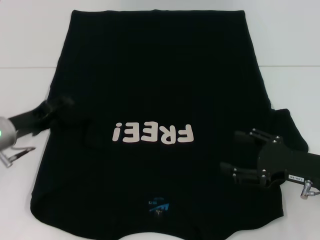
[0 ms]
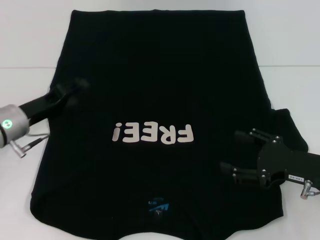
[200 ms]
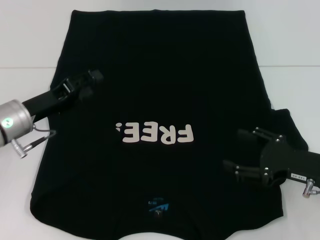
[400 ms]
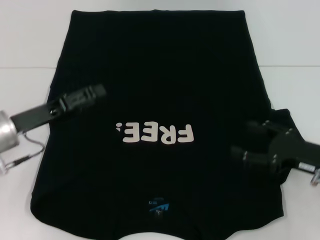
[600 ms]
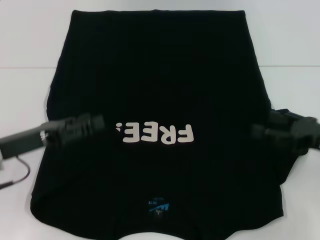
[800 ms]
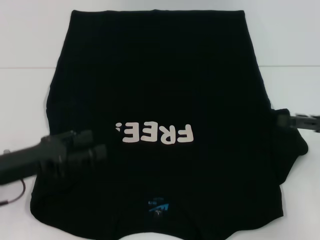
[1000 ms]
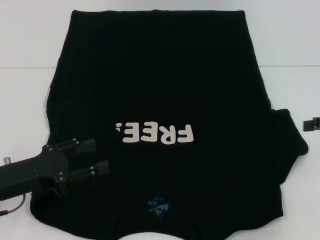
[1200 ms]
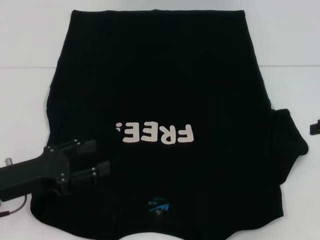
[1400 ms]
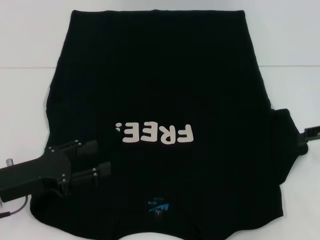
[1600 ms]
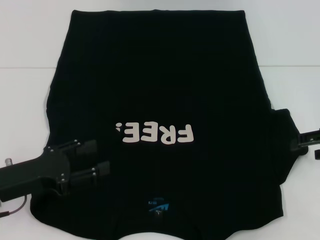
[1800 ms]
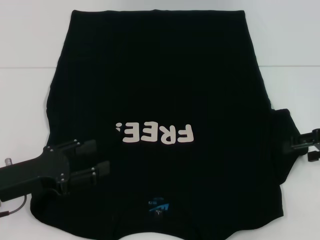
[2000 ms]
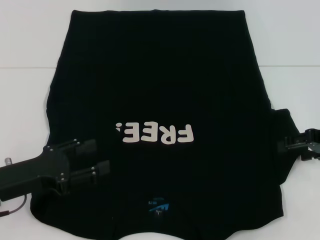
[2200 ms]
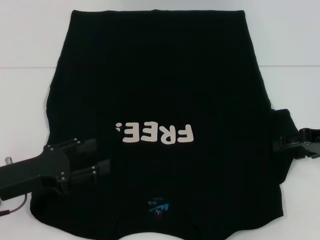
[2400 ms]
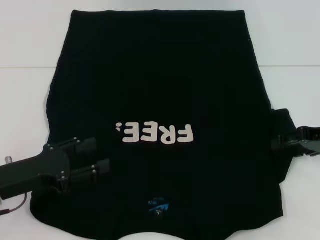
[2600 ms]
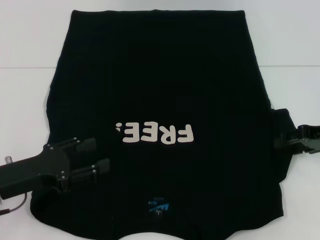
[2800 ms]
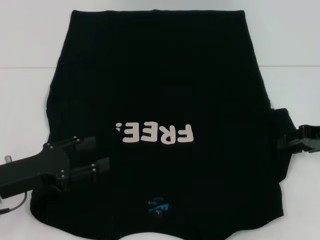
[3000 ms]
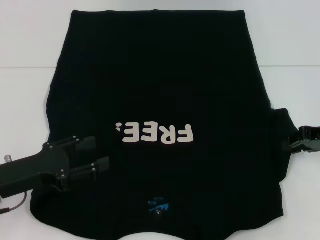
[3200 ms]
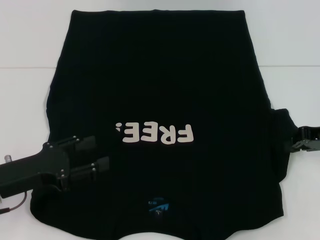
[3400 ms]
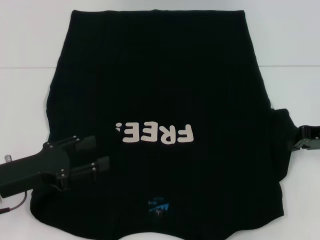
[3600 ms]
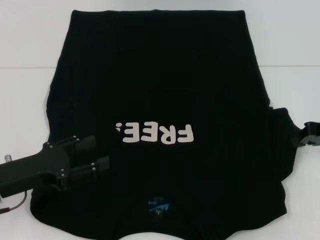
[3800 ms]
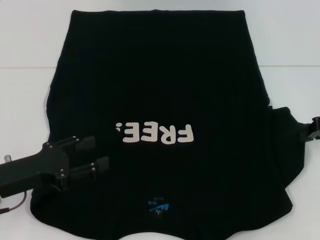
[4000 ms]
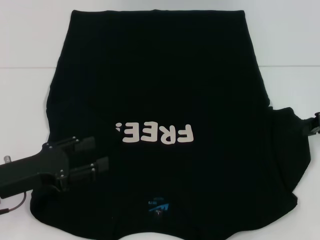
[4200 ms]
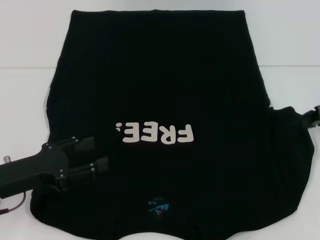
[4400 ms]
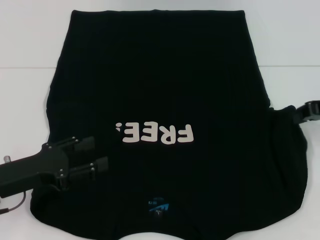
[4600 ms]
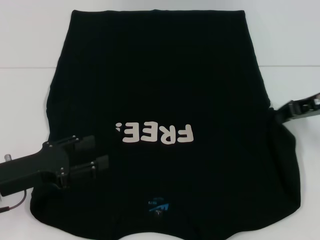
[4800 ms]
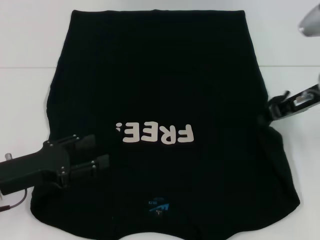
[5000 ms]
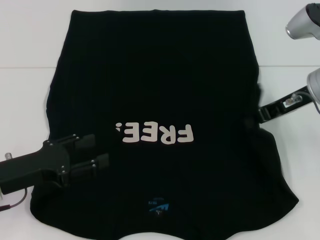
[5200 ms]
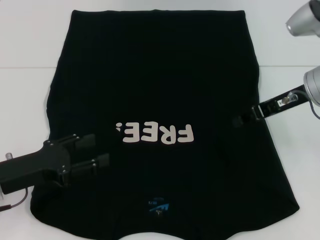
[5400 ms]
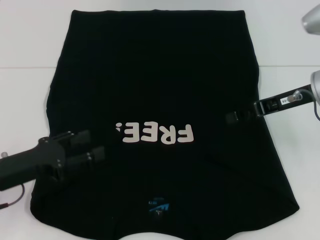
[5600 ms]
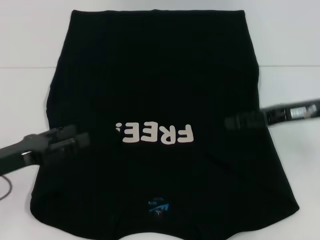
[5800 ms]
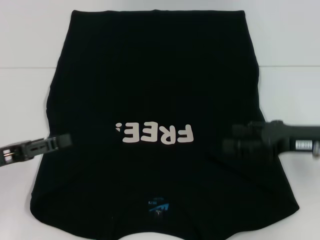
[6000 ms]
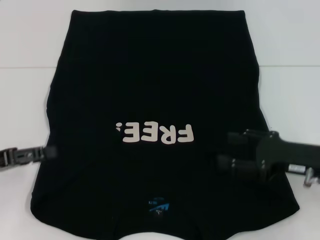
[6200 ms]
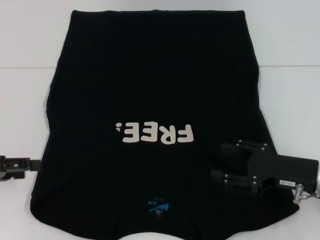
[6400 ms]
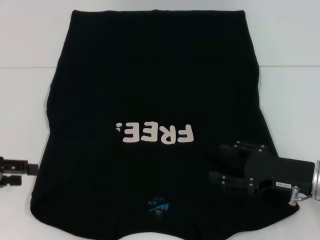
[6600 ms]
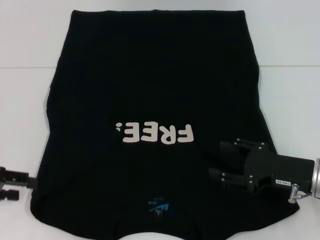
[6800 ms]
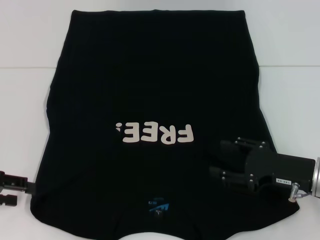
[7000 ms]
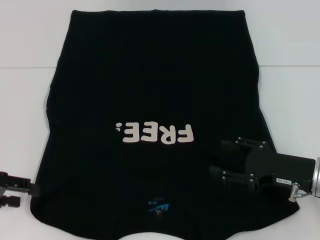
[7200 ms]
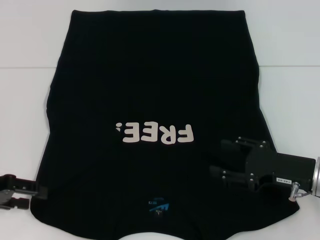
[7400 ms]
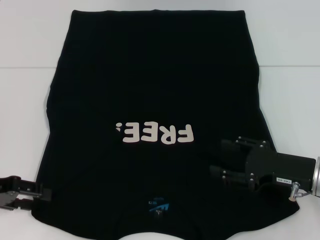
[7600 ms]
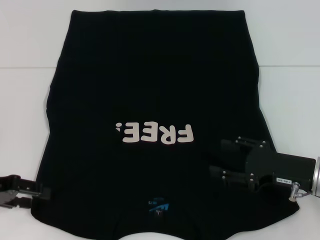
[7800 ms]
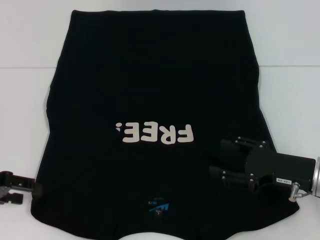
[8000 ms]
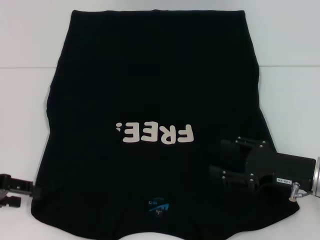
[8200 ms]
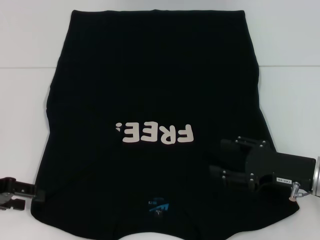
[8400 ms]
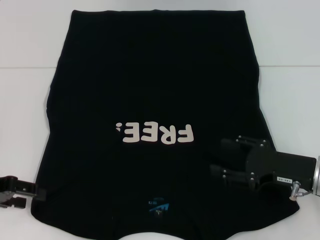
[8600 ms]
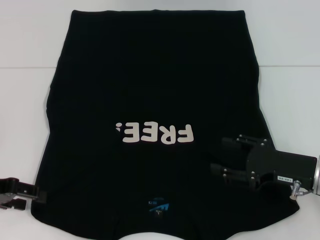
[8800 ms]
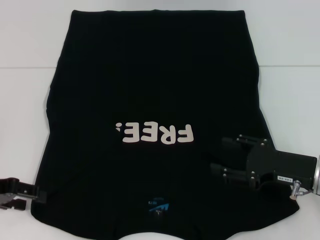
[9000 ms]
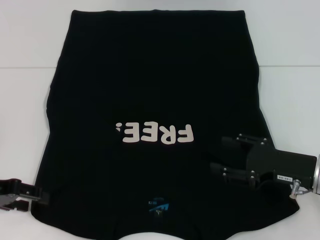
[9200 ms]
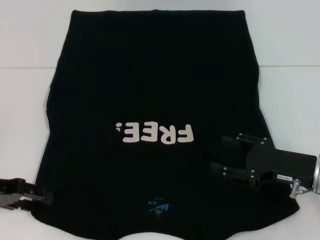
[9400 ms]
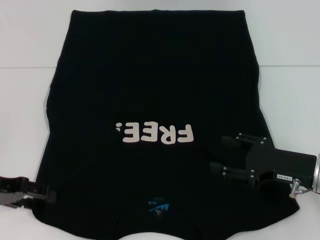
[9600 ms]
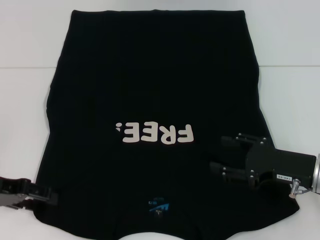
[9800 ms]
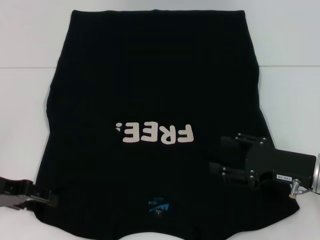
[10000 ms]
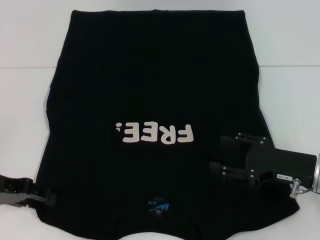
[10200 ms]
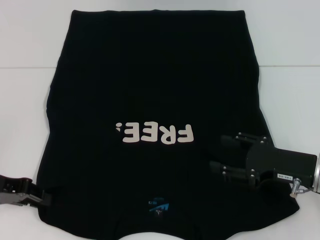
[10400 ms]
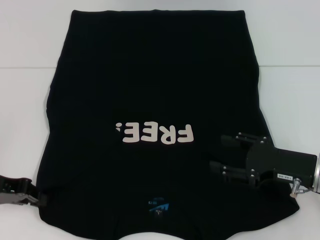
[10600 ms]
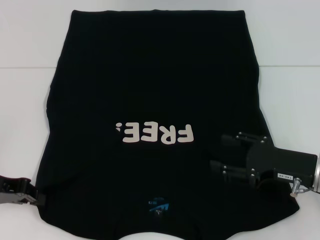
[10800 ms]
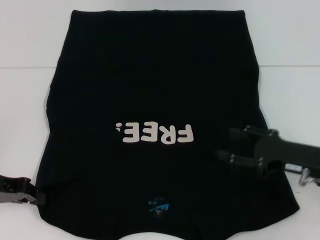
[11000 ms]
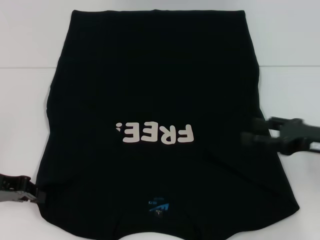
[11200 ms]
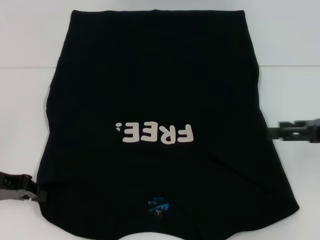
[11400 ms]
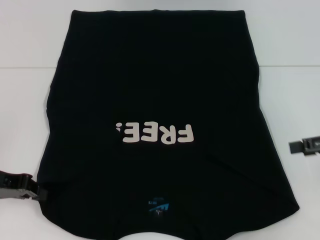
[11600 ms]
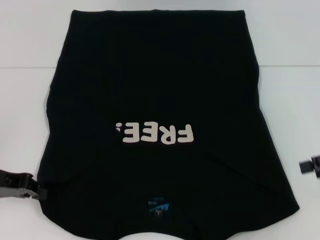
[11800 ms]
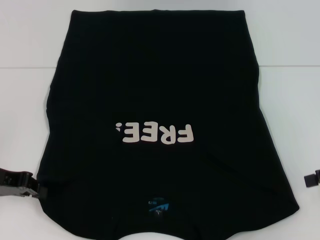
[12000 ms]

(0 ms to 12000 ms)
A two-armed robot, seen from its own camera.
Step, 0 ms - 5800 ms: Fold the bottom right sleeve with your right hand.
Step, 6000 ms - 10800 ms: Grab the bottom left corner with your left hand.
0 ms - 1600 ms: The right gripper heads upward, to the right and forward, covering about 15 cm. Meanwhile the left gripper is displaced backward by approximately 10 cm.
1600 ms - 3000 ms: The grippers move only a little.
3000 ms - 4400 ms: The right gripper closes its fingers.
4400 ms - 6000 ms: The right gripper is displaced to the left and backward by some 10 cm, and opens up.
6000 ms - 7600 ms: The right gripper goes roughly 5 cm downward.
7600 ms - 10400 ms: The grippers stay close to where they were, moving slightly.
10400 ms - 12000 ms: The left gripper closes, while the right gripper travels to the right and upward by about 15 cm.

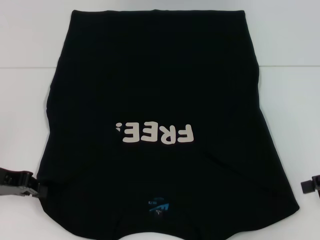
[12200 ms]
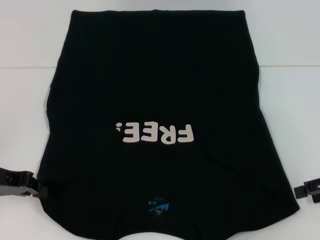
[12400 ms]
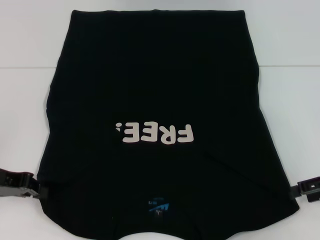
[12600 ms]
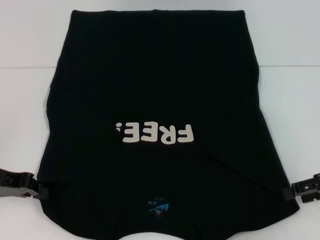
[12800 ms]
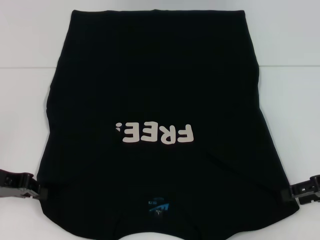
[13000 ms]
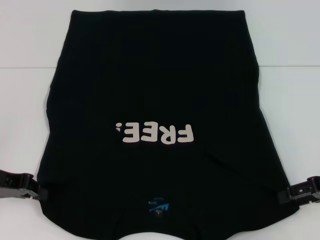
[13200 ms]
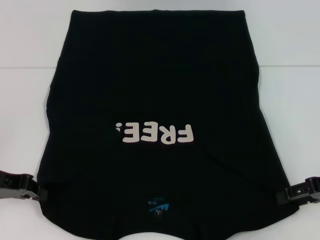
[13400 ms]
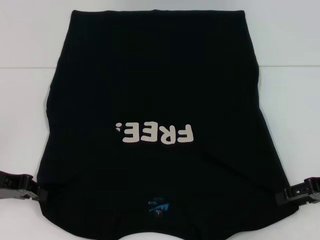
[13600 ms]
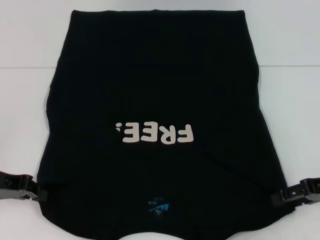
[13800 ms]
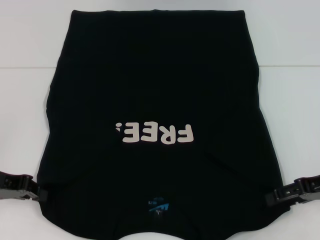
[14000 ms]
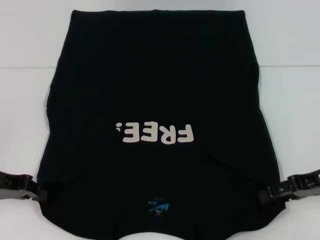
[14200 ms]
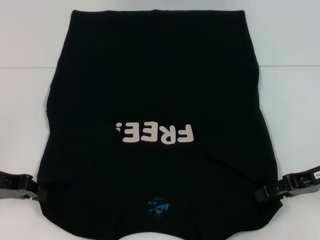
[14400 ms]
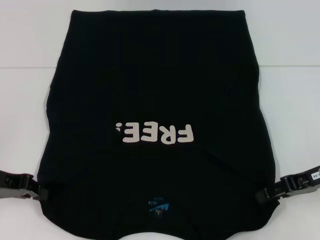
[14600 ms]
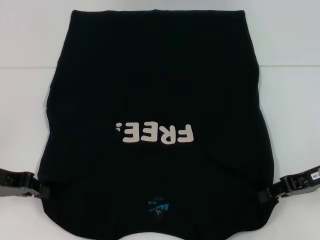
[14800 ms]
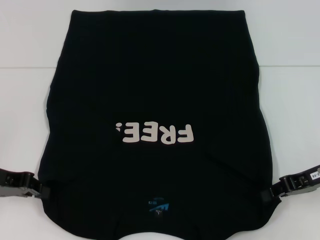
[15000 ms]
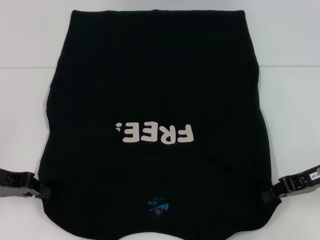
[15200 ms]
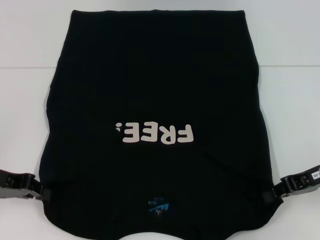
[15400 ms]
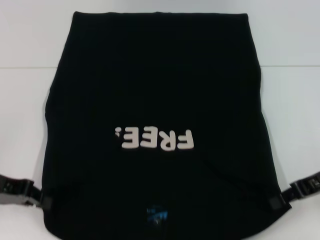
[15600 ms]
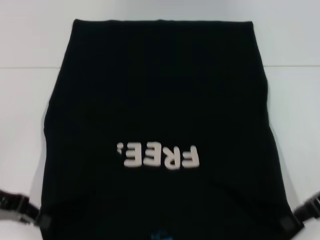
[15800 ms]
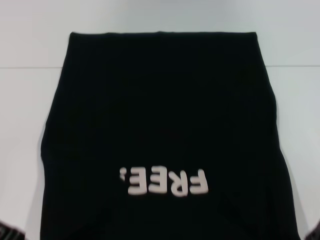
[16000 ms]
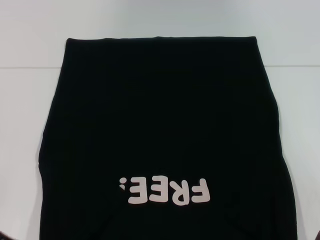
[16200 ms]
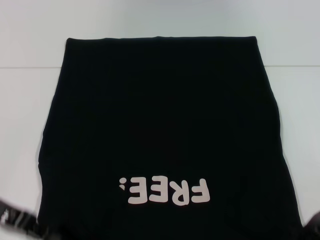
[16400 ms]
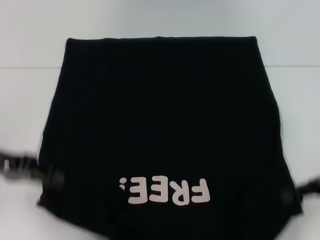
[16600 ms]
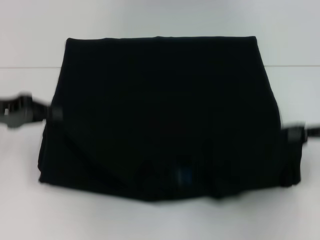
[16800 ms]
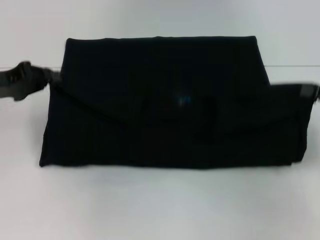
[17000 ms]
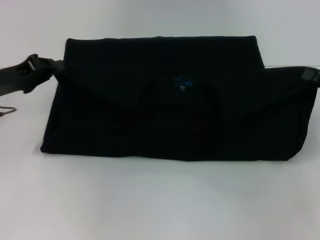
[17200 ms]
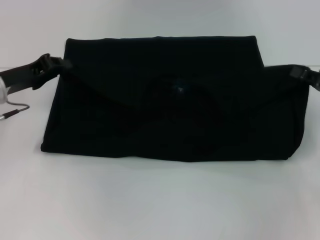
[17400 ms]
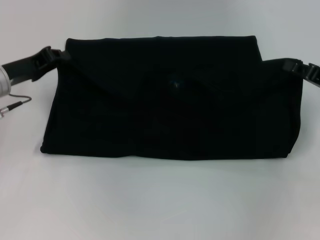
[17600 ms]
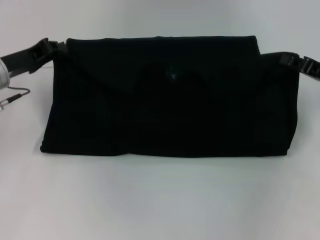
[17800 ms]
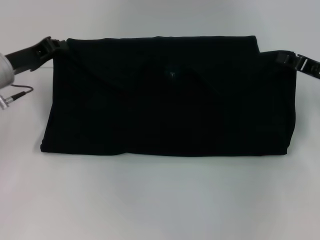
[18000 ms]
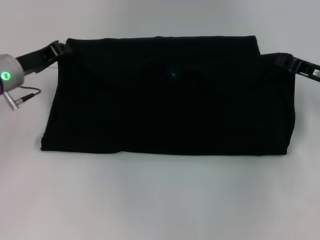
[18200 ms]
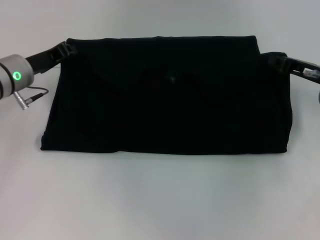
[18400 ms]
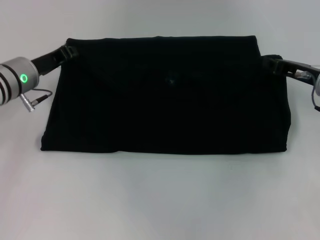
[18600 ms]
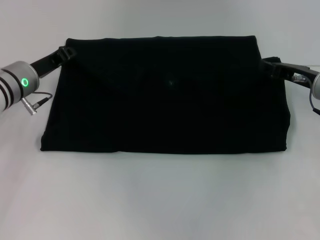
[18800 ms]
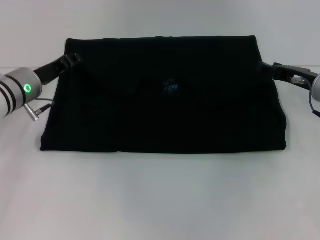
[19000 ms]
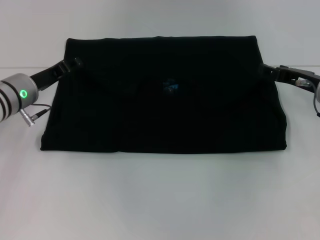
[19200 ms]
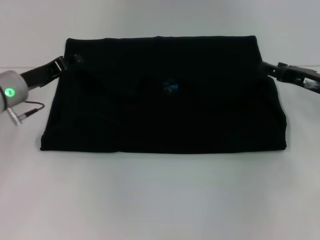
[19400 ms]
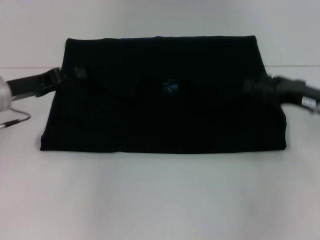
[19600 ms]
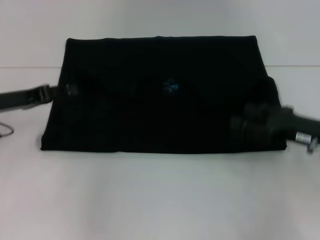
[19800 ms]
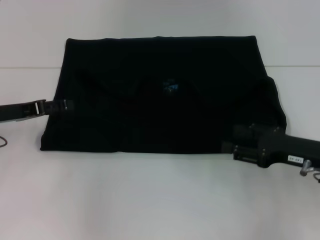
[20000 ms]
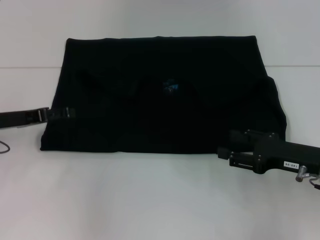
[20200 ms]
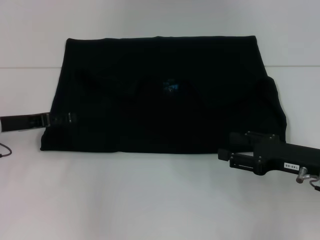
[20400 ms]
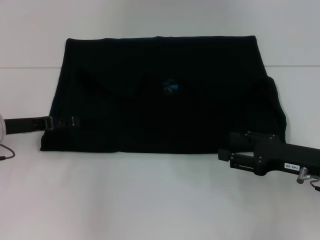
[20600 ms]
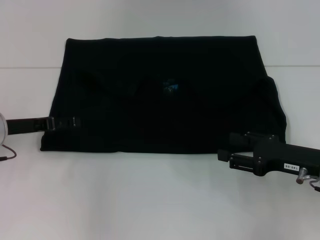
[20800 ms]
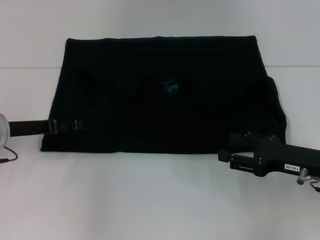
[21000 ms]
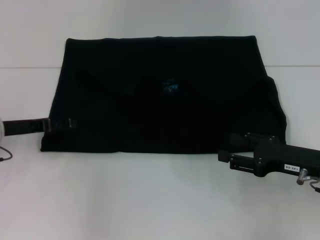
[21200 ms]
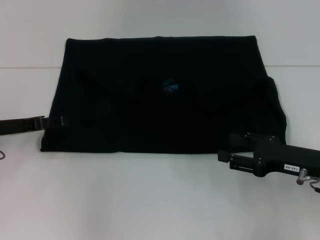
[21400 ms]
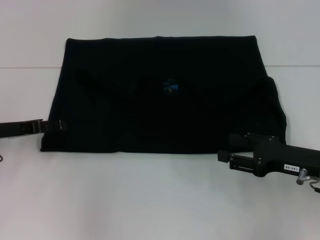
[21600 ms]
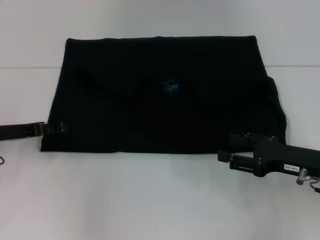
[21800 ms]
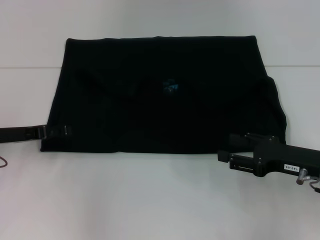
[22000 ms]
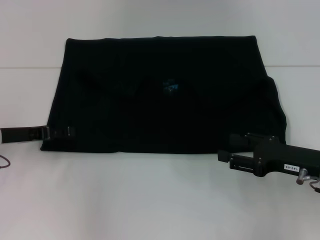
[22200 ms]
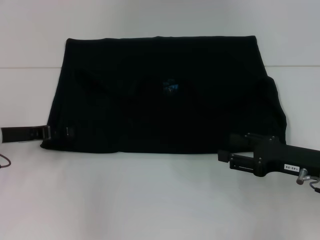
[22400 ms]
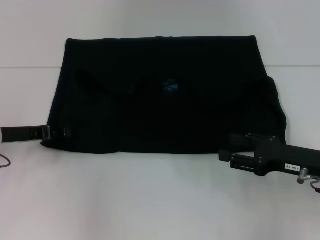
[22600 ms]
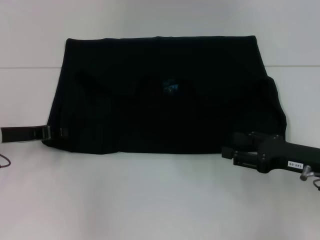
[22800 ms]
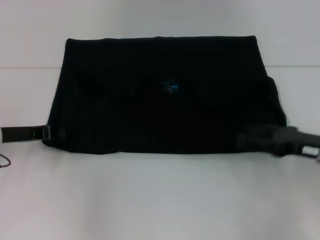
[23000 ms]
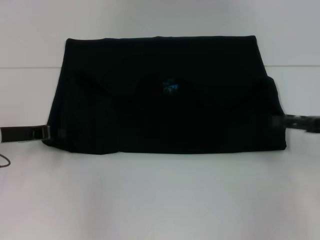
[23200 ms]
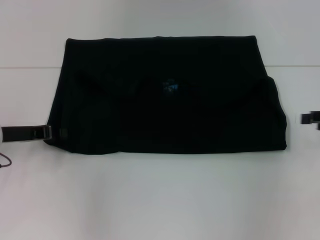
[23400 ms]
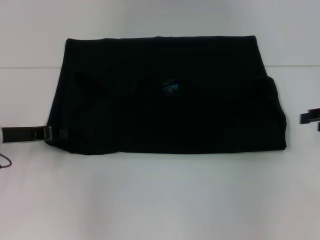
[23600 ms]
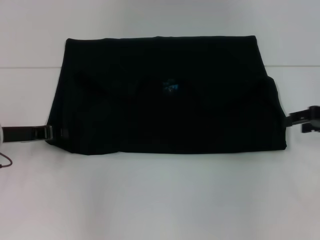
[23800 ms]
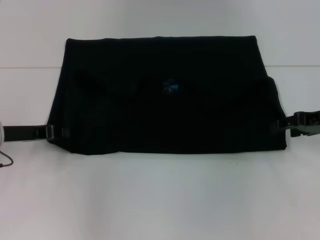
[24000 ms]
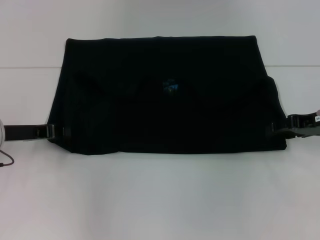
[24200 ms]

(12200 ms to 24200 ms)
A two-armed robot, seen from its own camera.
Step, 12200 ms - 15400 ms: Grab the bottom right corner with your right hand.
Step, 15600 ms - 19400 ms: Fold the clothes with your left hand.
Step, 15600 ms - 19400 ms: Fold the clothes with your right hand.
12200 ms - 13800 ms: The right gripper changes place by about 5 cm.
13800 ms - 15200 ms: The right gripper closes up.
15200 ms - 16600 ms: The right gripper moves roughly 5 cm.
16600 ms - 18200 ms: The grippers both shift forward by roughly 10 cm.
18200 ms - 19800 ms: Both grippers move backward, approximately 5 cm. The right gripper opens; the left gripper opens up.
19800 ms - 22600 ms: There are only small adjustments of the grippers.
22600 ms - 24200 ms: The left gripper closes. Meanwhile the right gripper goes about 10 cm forward and upward.
